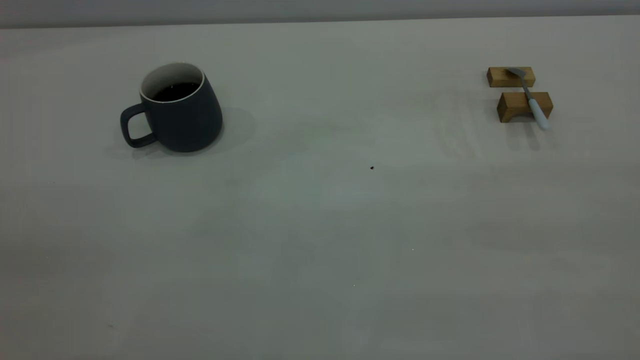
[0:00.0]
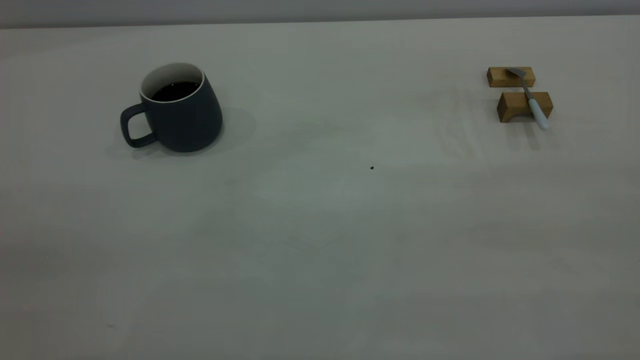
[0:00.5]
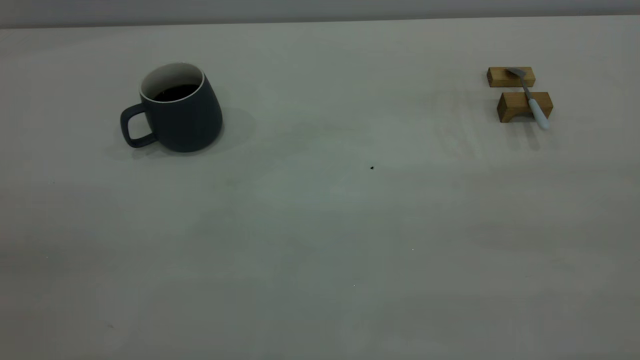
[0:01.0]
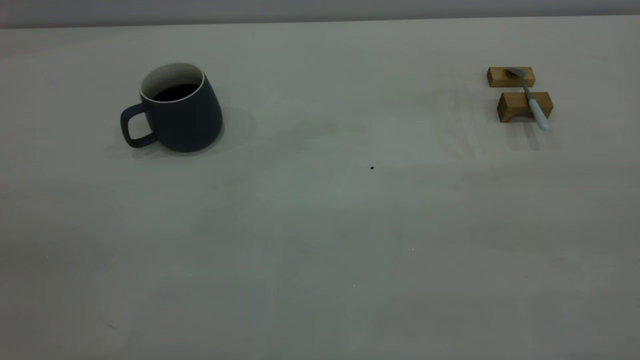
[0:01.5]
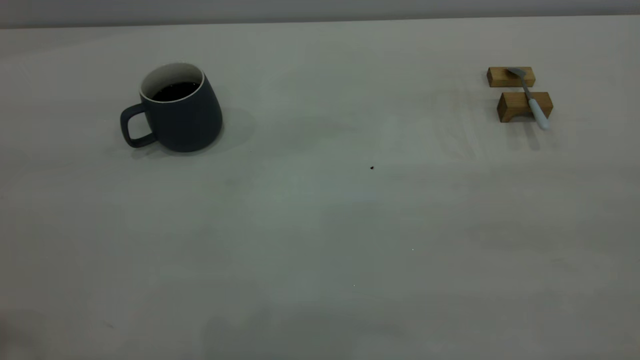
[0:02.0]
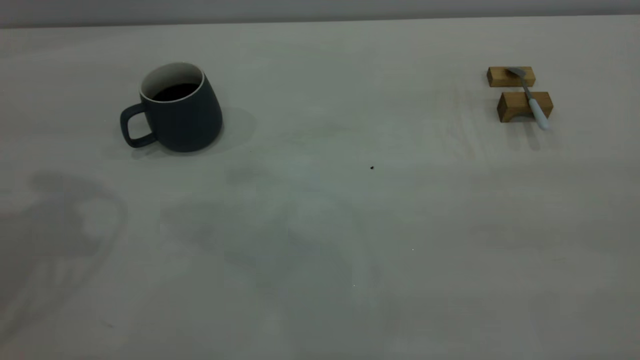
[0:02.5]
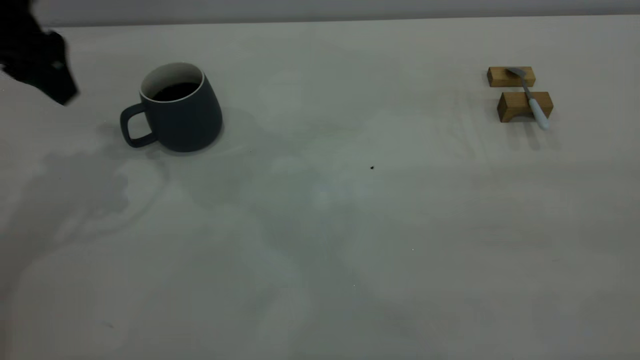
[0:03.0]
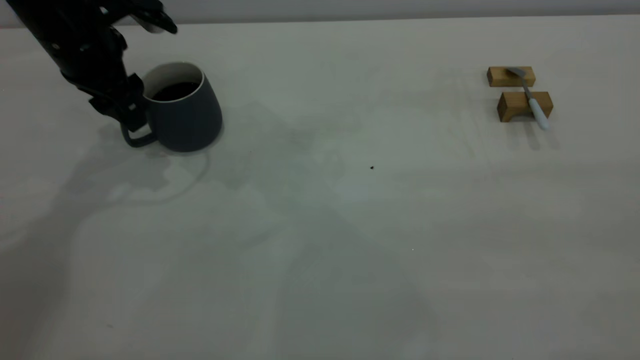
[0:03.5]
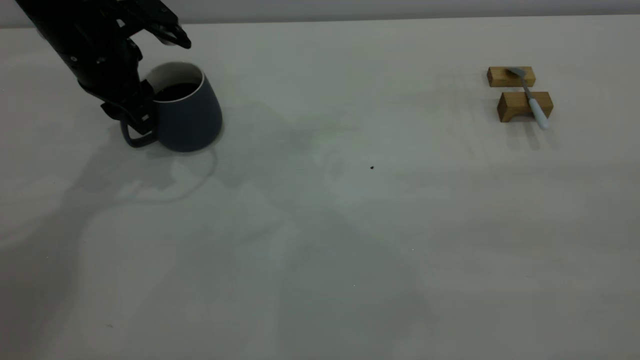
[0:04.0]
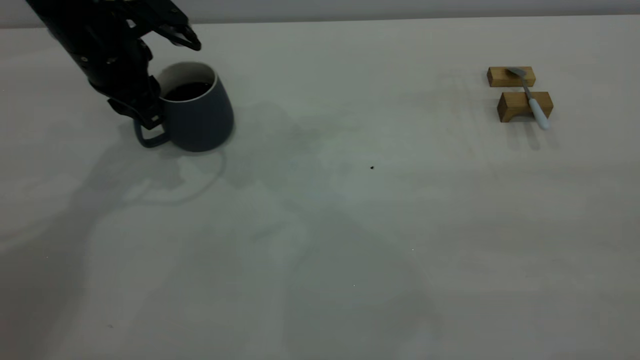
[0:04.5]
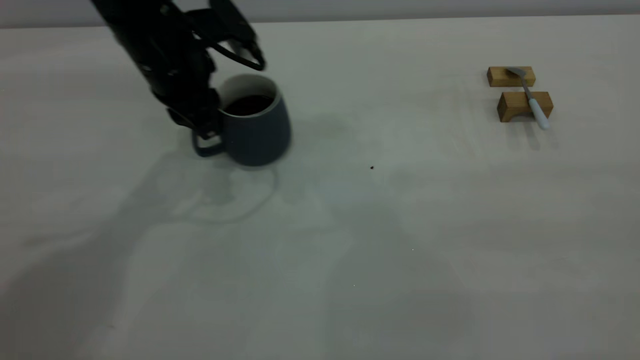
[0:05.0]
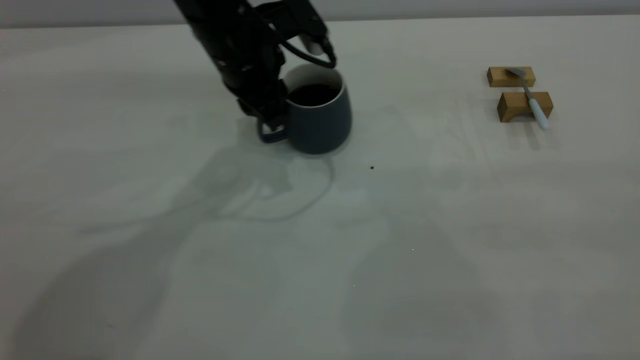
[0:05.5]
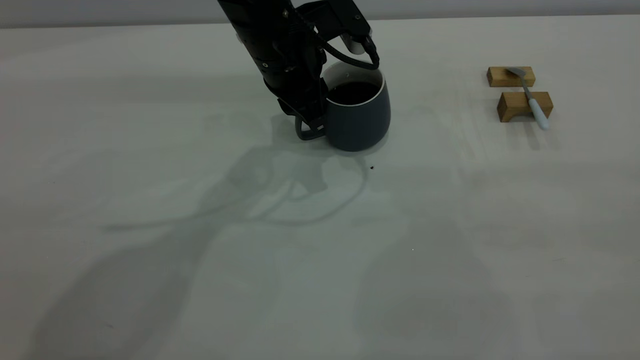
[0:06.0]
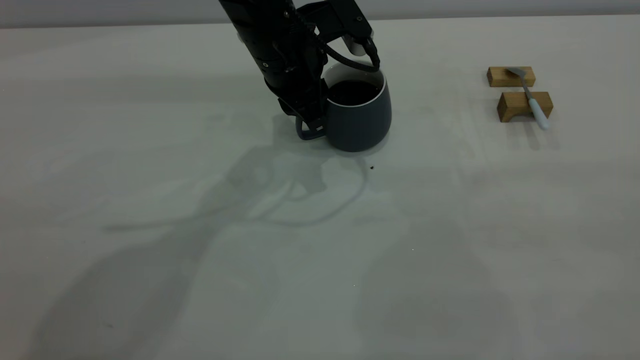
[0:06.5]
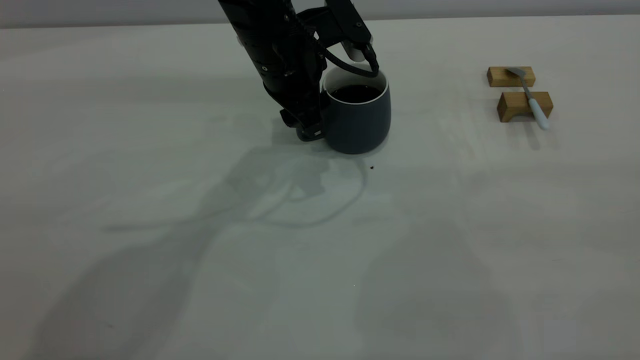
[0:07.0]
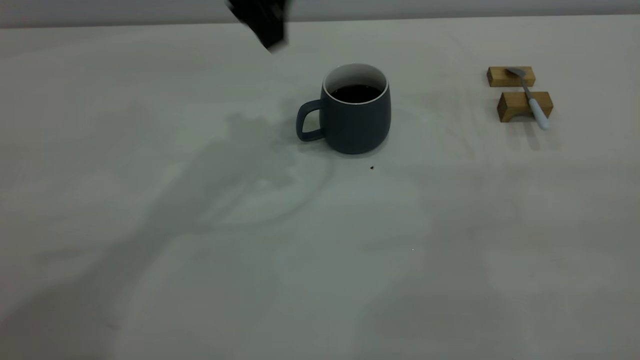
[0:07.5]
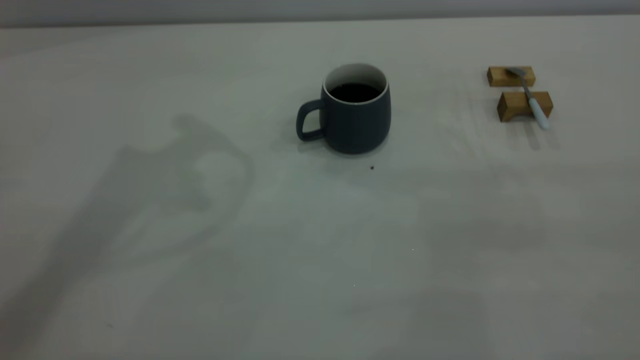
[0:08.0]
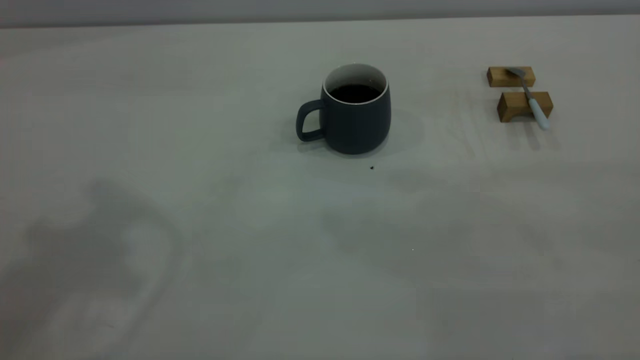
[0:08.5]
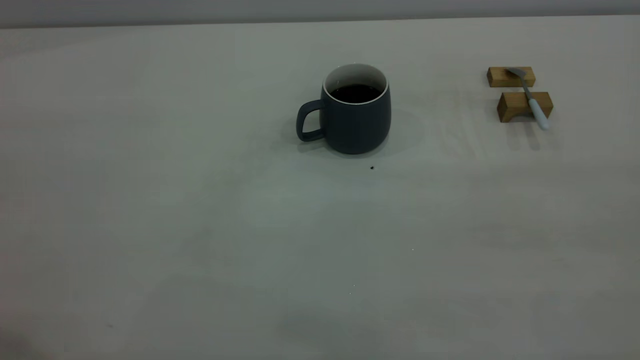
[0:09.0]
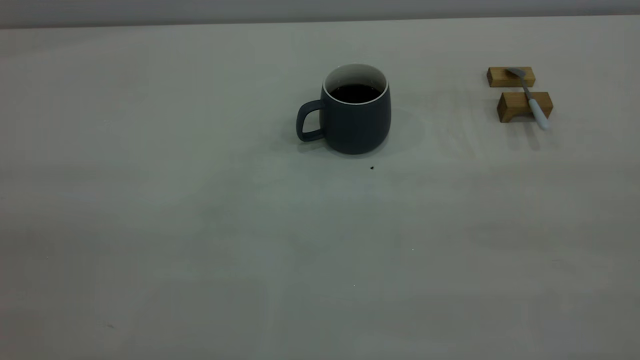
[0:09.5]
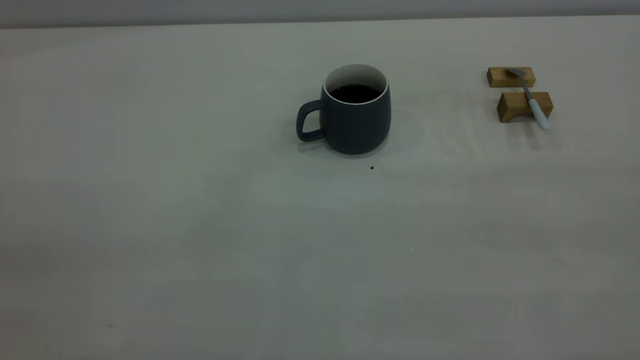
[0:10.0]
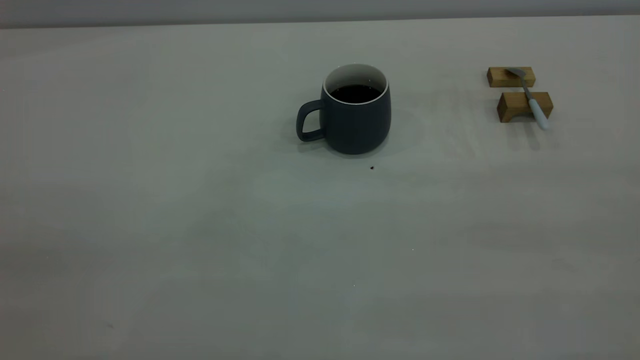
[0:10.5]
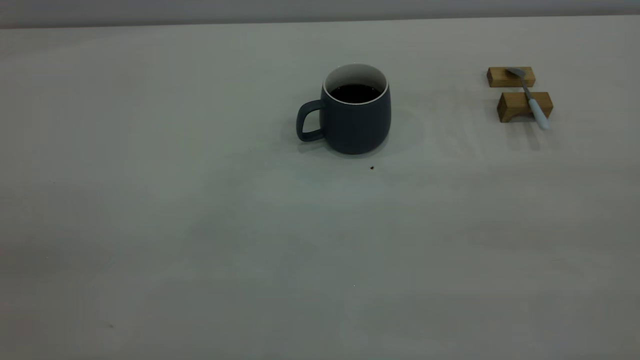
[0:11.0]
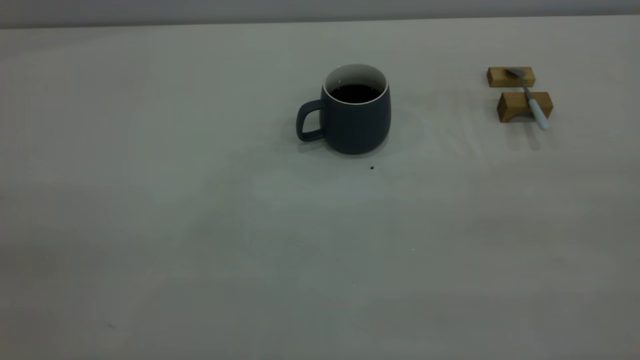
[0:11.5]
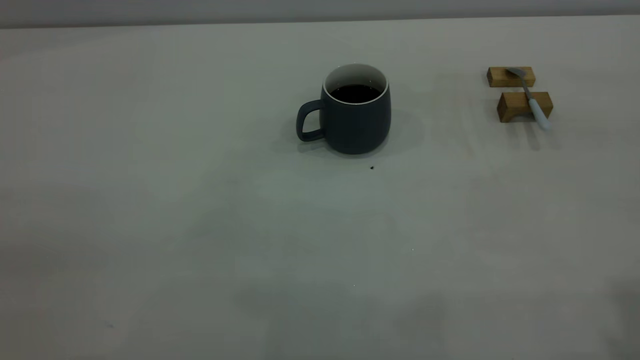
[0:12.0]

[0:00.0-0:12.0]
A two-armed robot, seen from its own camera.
Step, 0:00.0 to 0:07.0: Move the cup with coffee to the center of view.
0:02.0 to 0:04.0: The left gripper travels forward and downward by some 40 cm, and opens, then closes once more.
0:04.0 to 0:06.0: The left gripper travels to the right by roughly 20 cm, and closes.
0:06.0 to 0:08.0: The left gripper goes roughly 30 cm upward and to the left, and opens its fingers.

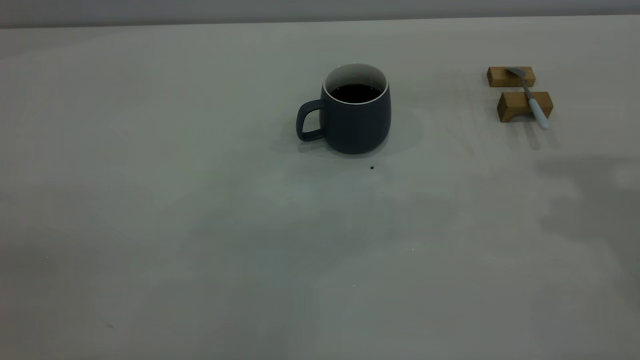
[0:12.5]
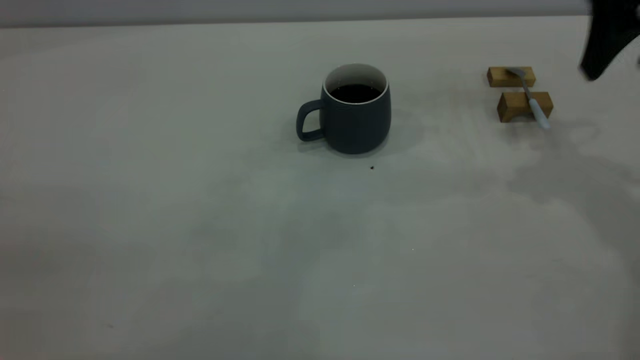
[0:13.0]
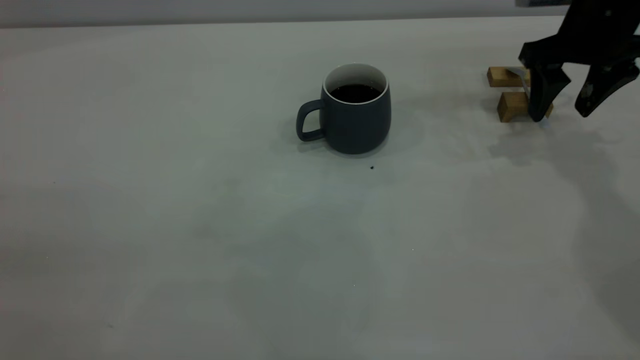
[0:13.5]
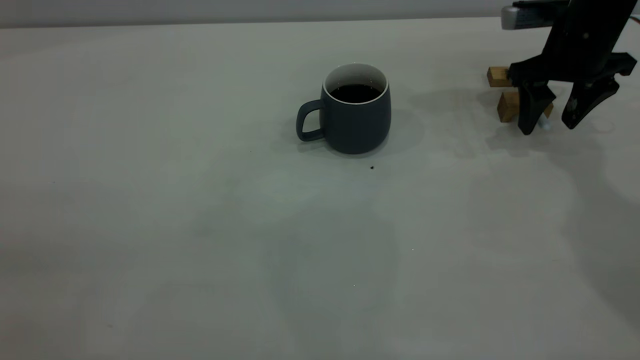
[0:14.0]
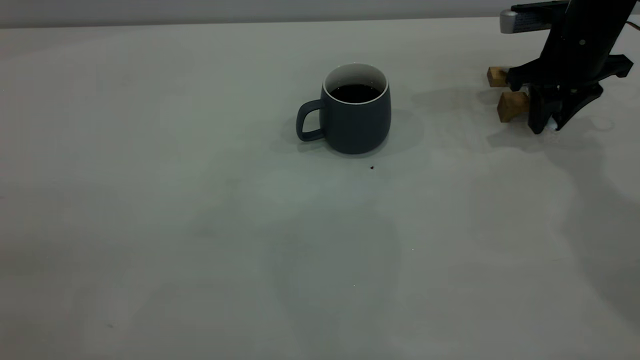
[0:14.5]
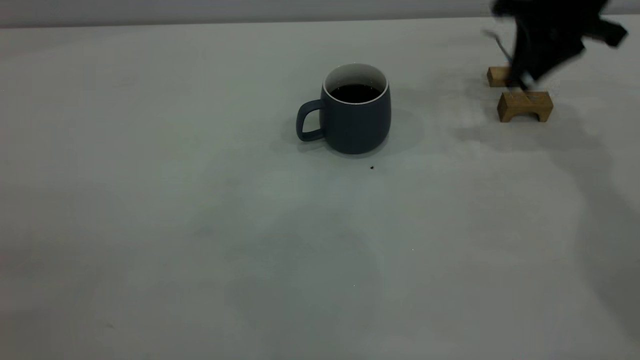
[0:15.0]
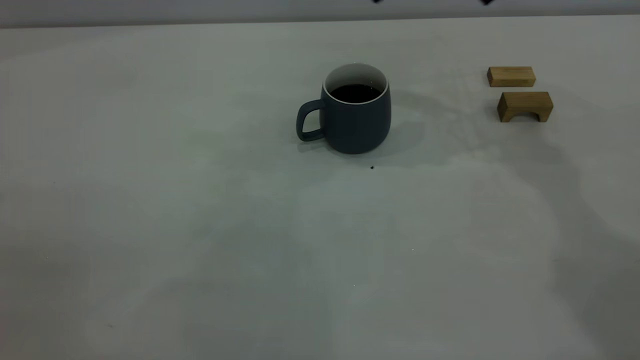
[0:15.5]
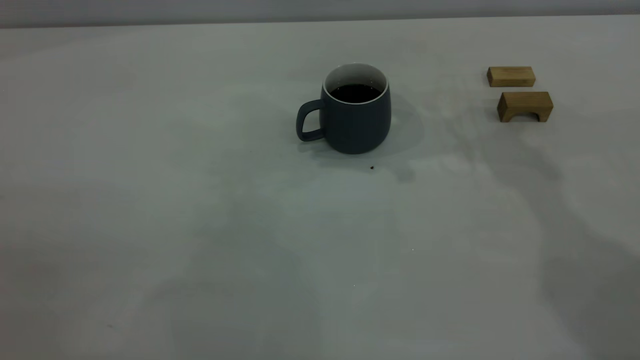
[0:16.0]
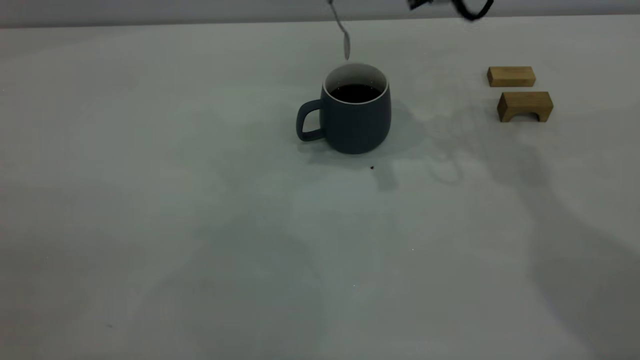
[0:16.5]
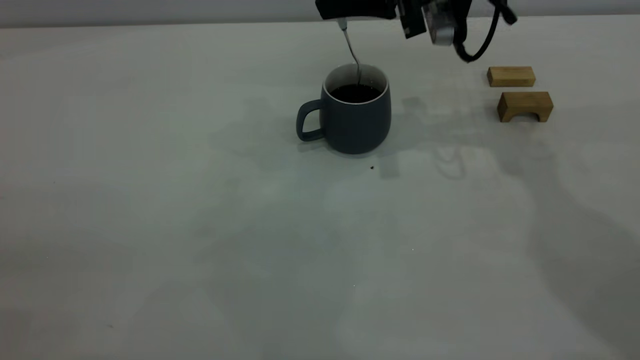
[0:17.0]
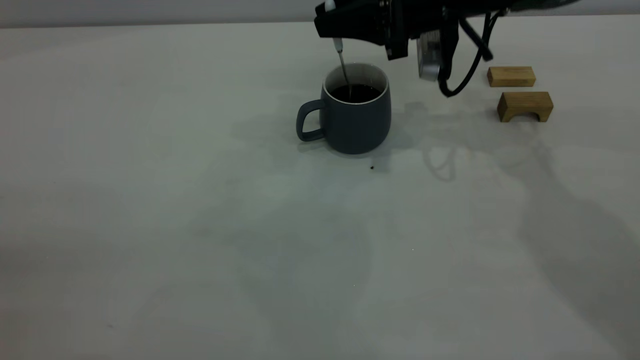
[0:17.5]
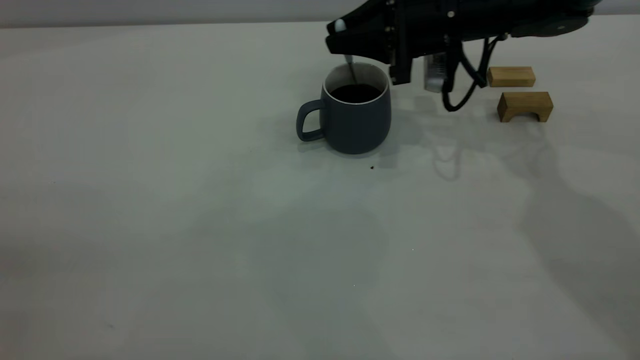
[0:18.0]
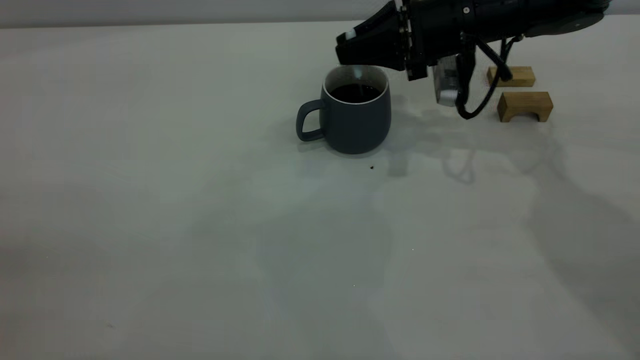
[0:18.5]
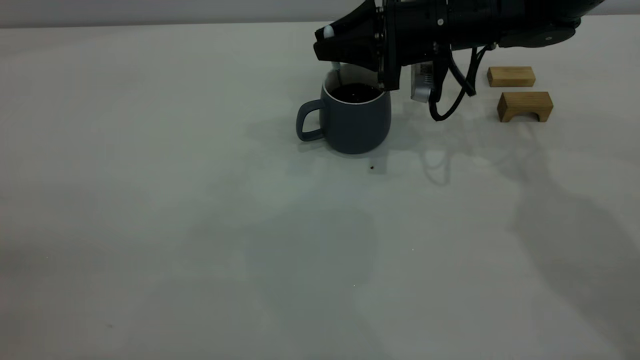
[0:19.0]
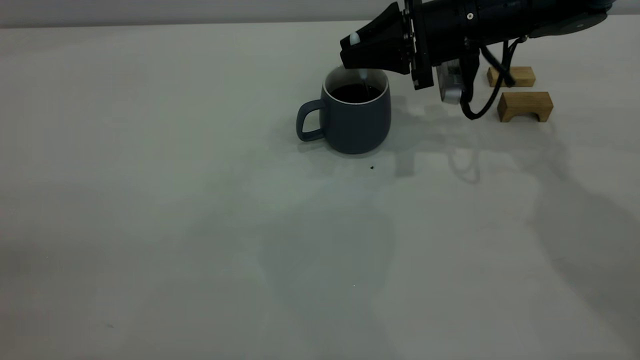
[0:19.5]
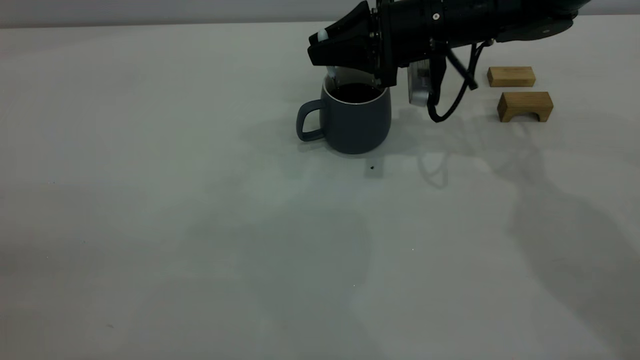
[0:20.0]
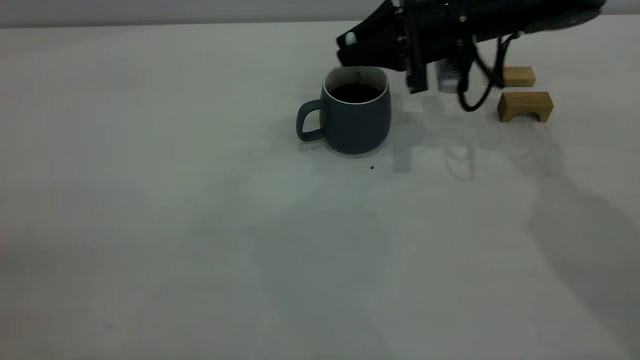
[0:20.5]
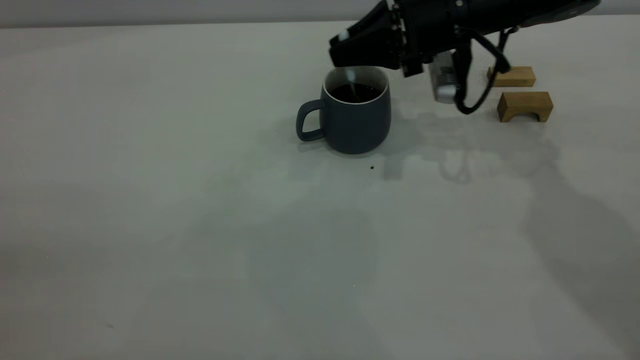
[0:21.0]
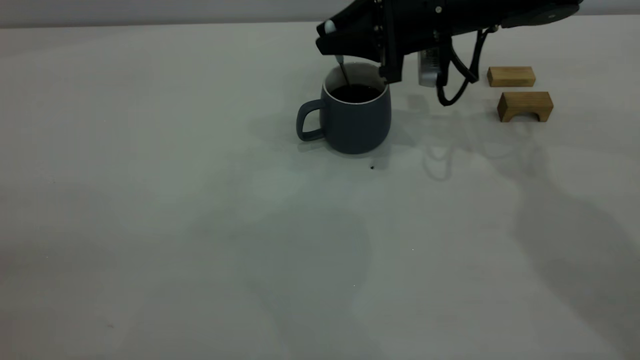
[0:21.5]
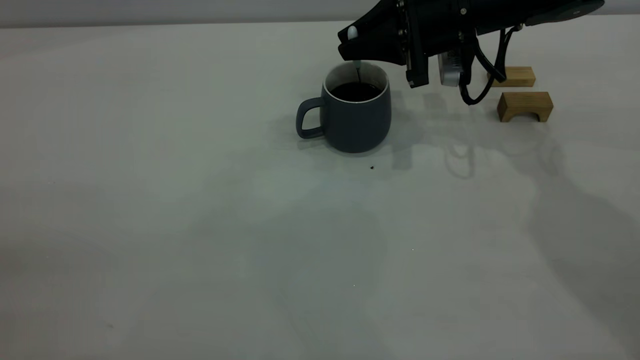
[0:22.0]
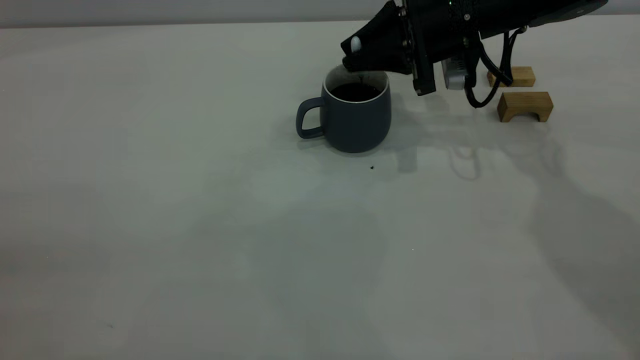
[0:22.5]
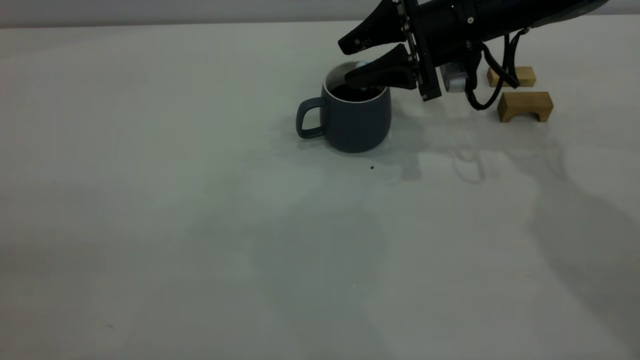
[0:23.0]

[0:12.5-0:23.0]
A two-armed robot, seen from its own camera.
Step, 0:12.5 to 0:15.0: Pick up the spoon.
0:12.5 to 0:14.5: The right gripper is displaced downward and forward by about 25 cm, and closes its fingers.
0:14.5 to 0:16.5: The right gripper goes roughly 20 cm to the left and upward.
0:16.5 to 0:19.0: The right gripper shifts about 10 cm downward.
0:19.0 to 0:21.0: The grippers make only small movements.
0:21.0 to 0:23.0: The right gripper opens up.
